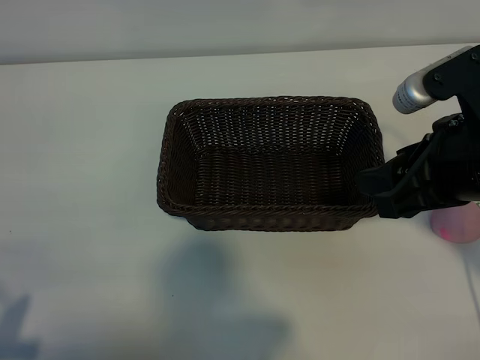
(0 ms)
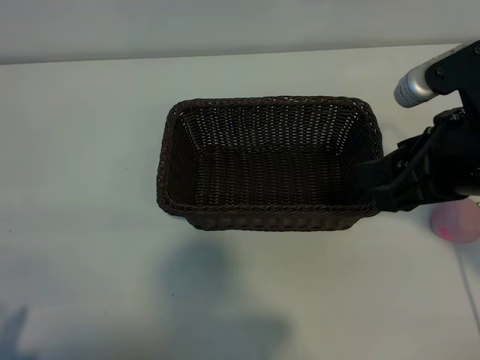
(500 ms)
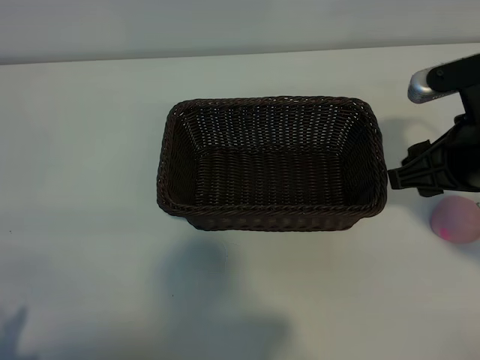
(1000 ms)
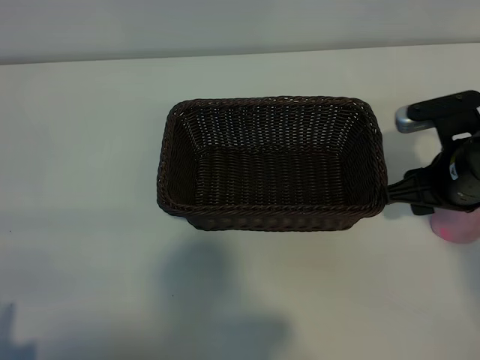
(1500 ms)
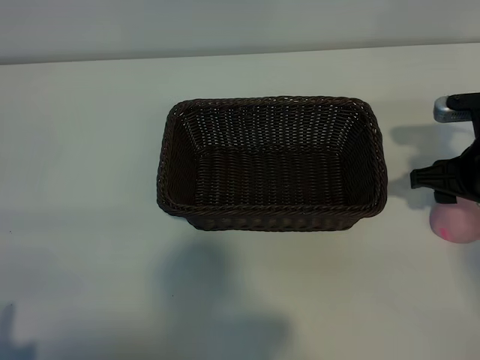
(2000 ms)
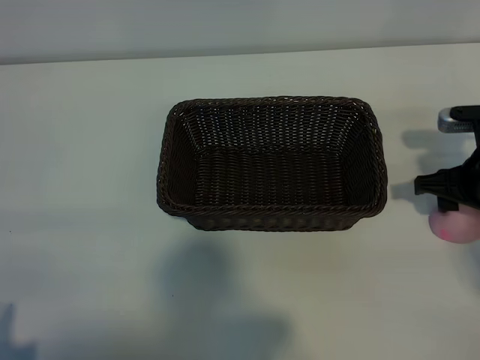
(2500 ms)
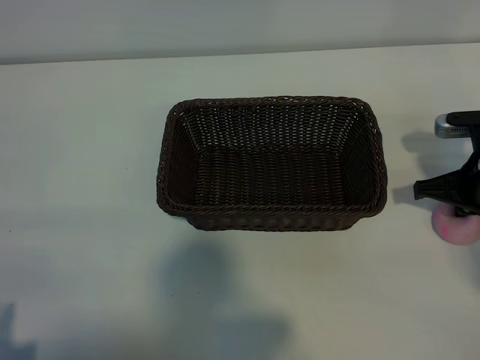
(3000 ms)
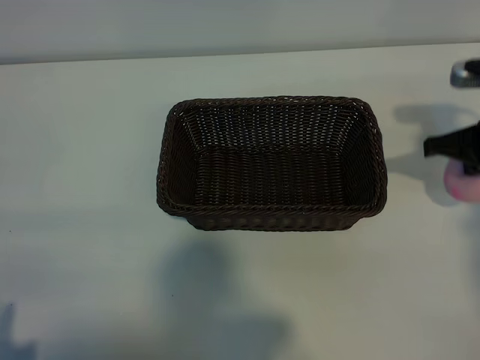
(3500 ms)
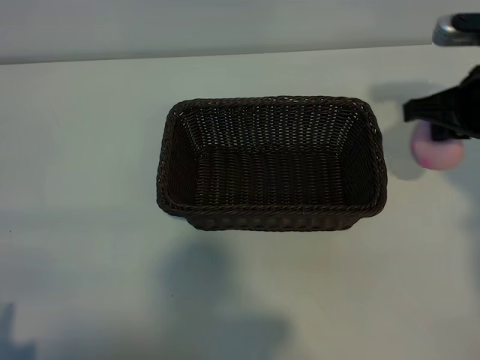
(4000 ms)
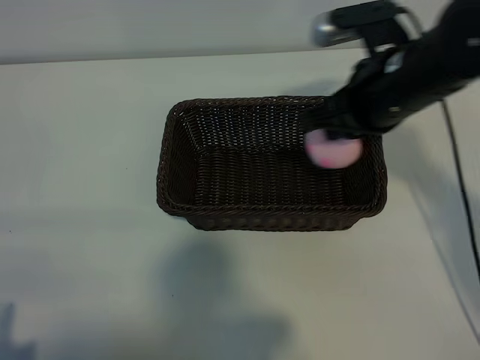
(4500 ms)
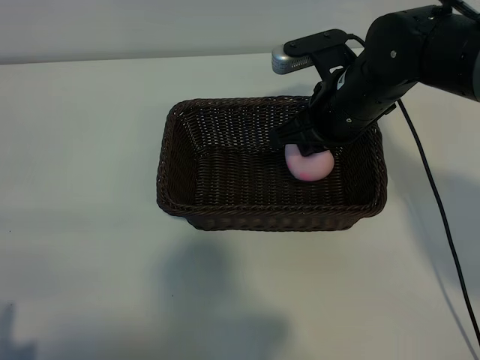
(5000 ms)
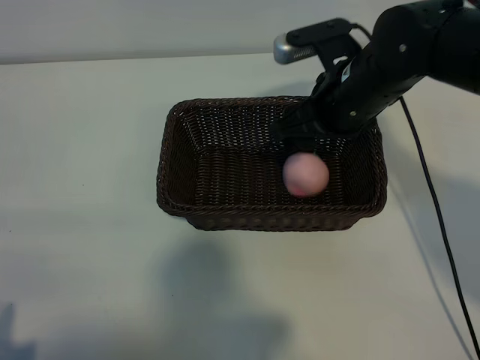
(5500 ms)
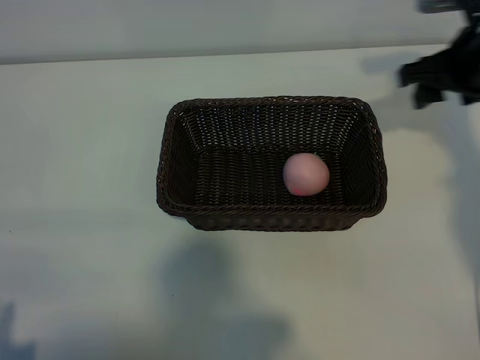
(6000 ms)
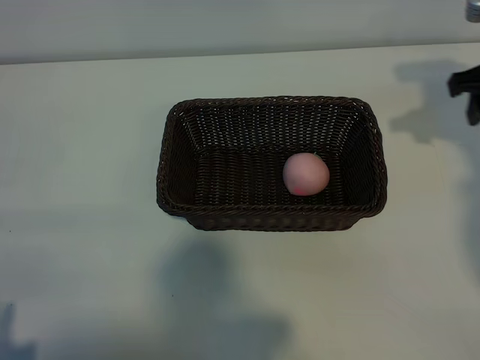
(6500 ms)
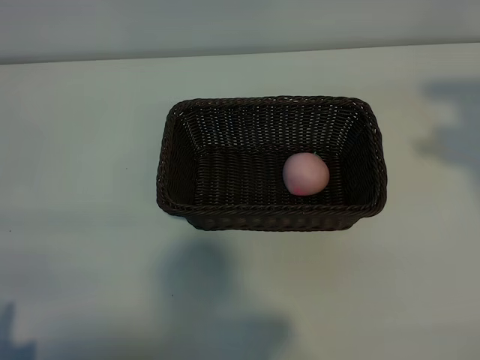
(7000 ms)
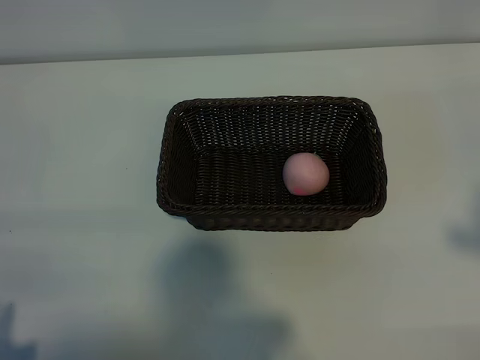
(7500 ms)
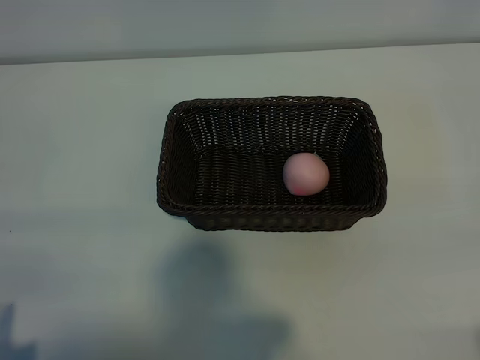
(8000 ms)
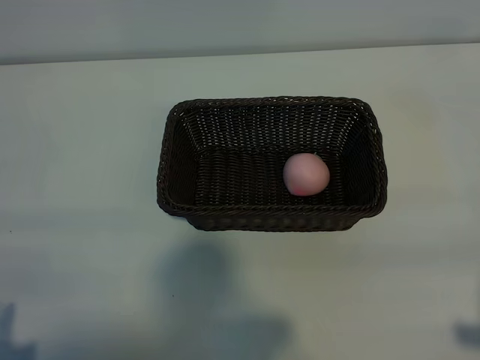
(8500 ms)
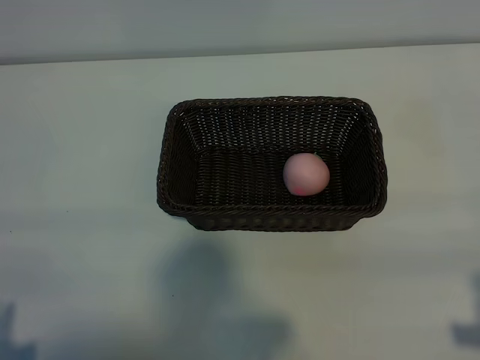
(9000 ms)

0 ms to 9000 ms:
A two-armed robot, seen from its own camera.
Task of the whole recording: pick up the peach and put it into the basket.
Step, 0 ms to 3000 ms: Grasp the peach with right gripper.
Step, 3500 ms to 5000 ms: Place the peach in the basket with right gripper.
